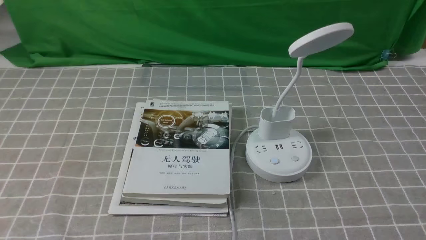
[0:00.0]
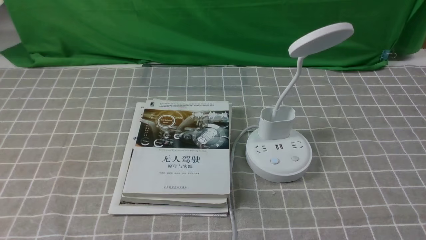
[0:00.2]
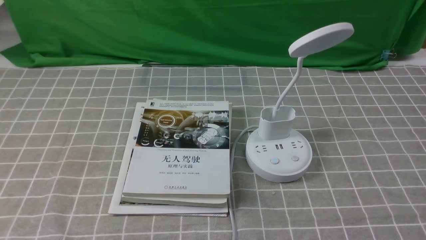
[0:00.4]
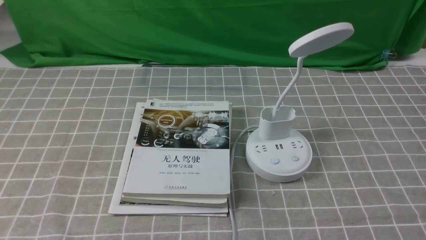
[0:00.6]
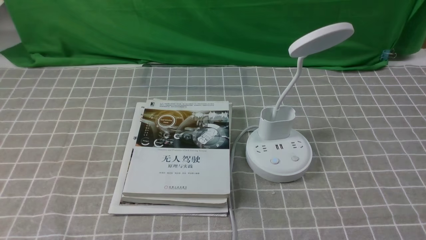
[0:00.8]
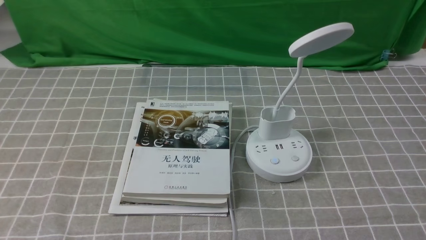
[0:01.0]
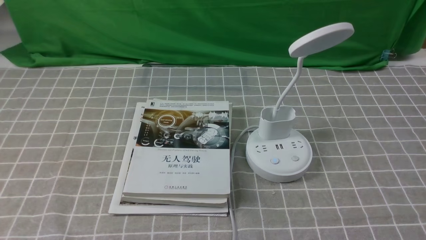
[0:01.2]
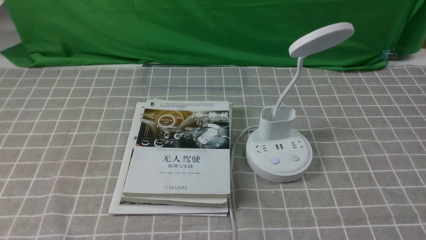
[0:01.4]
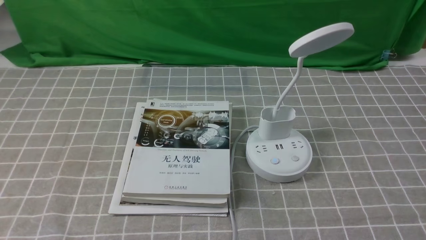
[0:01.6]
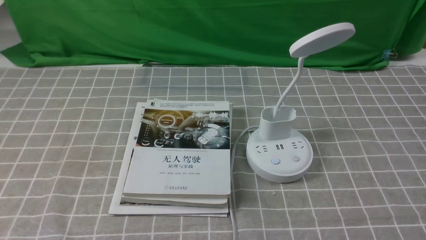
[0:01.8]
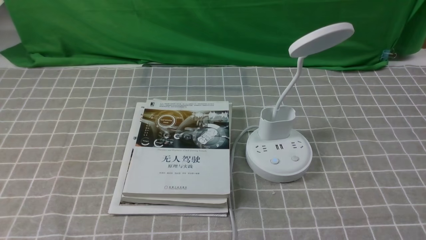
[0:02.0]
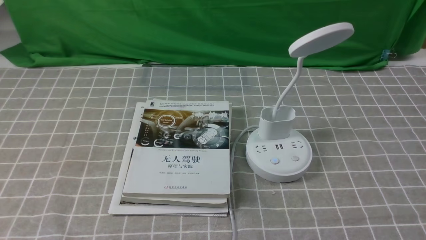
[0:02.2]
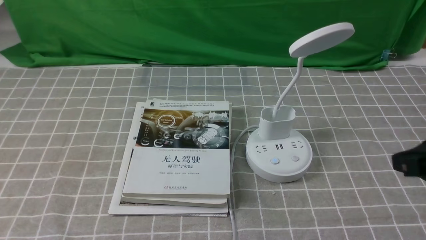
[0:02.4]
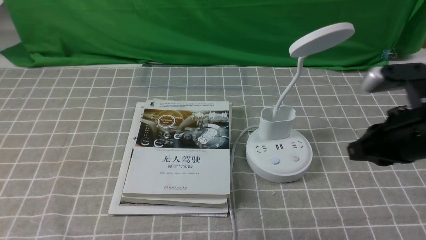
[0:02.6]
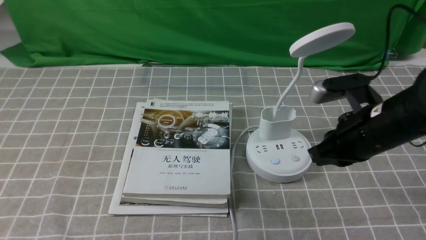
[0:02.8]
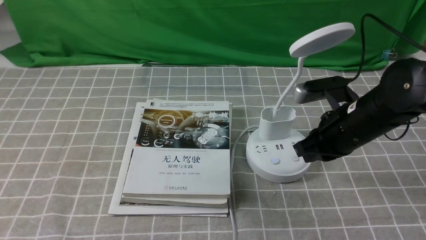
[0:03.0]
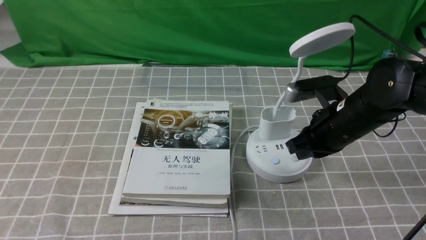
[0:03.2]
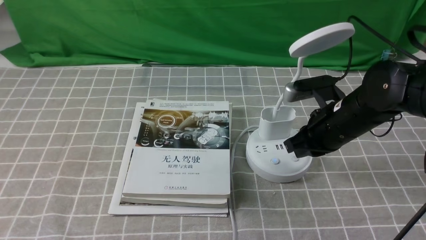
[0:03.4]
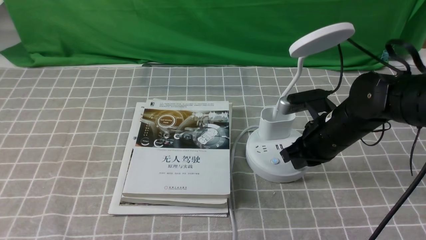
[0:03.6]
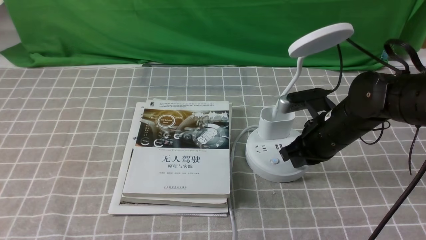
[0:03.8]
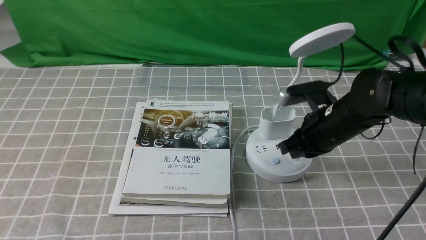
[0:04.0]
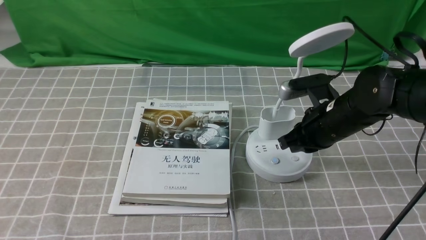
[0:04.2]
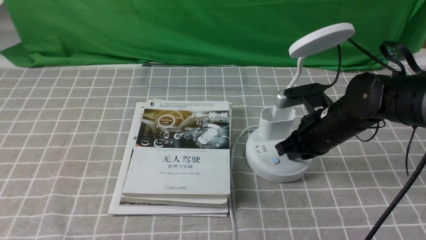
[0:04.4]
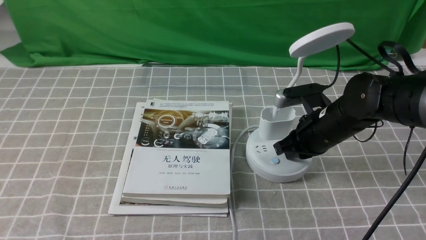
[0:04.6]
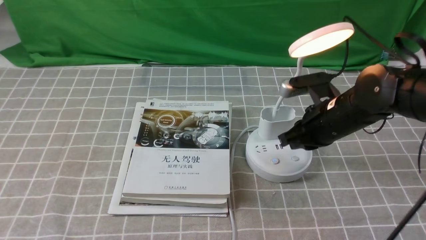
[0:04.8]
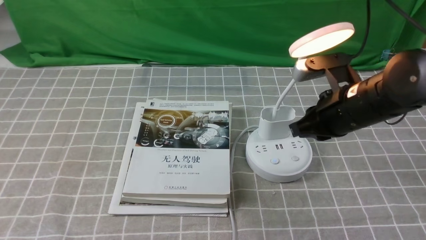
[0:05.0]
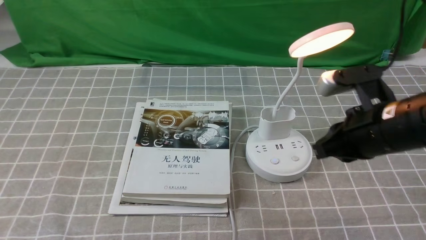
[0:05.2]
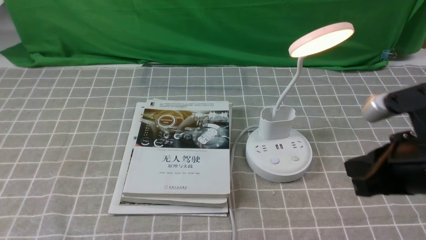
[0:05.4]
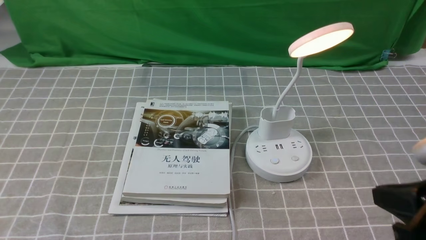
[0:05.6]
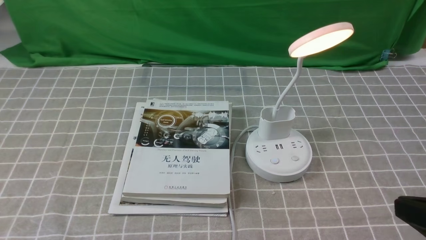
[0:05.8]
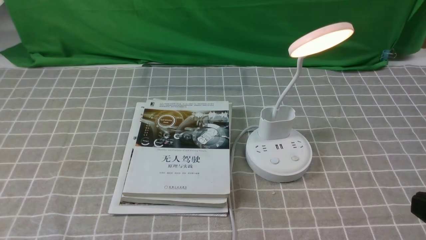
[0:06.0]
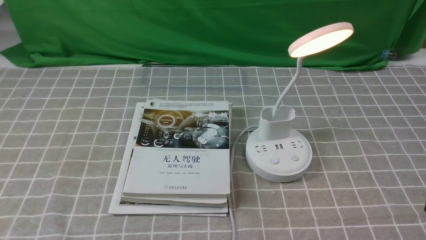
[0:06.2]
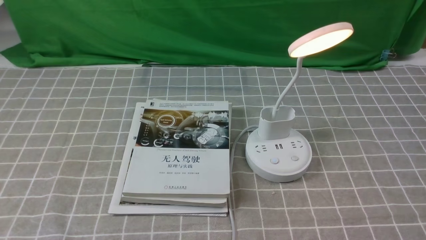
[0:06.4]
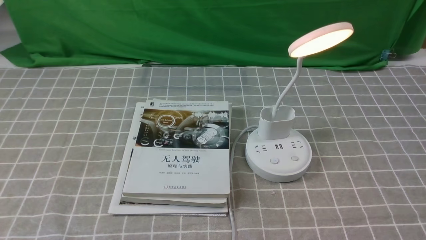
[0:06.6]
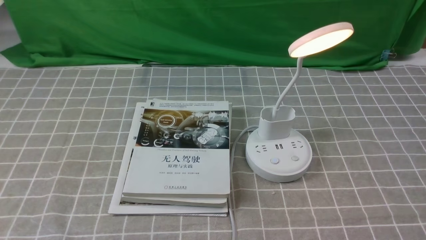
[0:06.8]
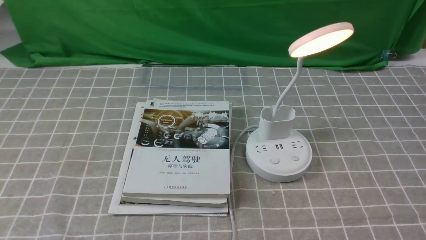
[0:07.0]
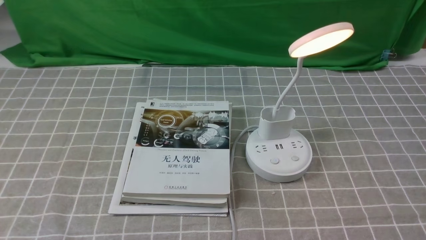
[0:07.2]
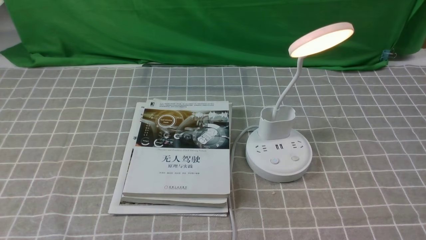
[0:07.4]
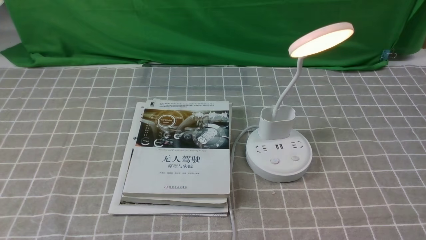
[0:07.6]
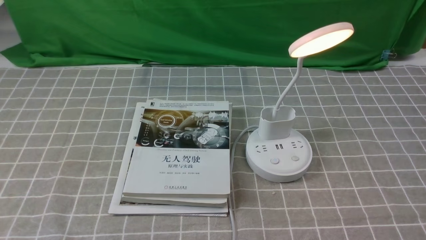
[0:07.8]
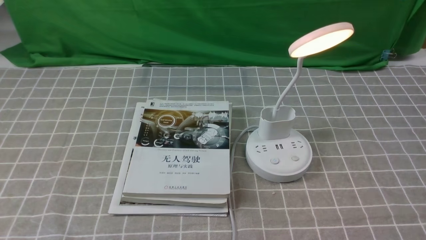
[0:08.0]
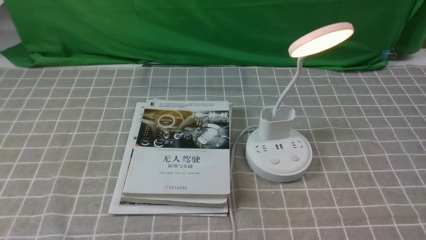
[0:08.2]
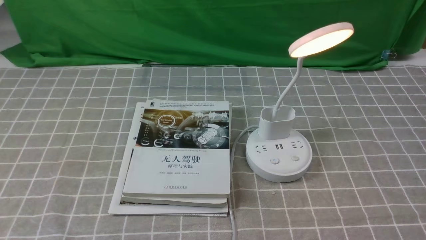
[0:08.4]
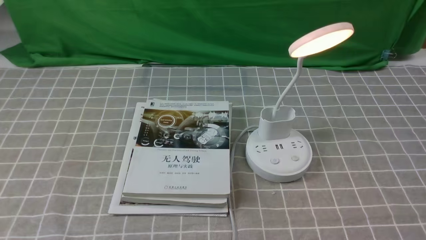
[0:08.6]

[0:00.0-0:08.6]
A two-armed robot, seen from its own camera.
Step, 0:00.0 to 0:05.0: use the right arm to press the button switch on the lamp holder.
0:01.4 to 0:02.8: The right gripper heads forward and to the left, covering some 25 cm, and closes up.
0:02.8 to 0:04.4: The right gripper goes some 10 cm downward and forward.
0:04.4 to 0:05.8: The right gripper moves backward and upward, approximately 25 cm.
0:05.8 to 0:07.2: The right gripper moves downward, about 10 cm.

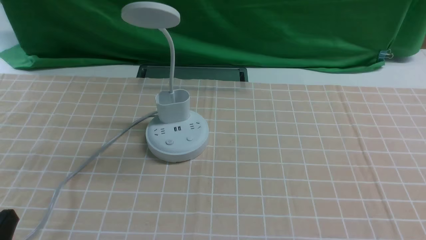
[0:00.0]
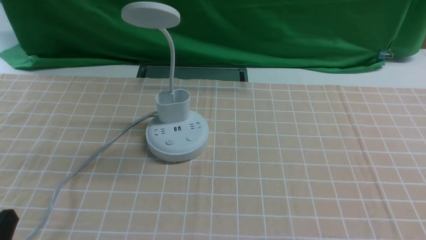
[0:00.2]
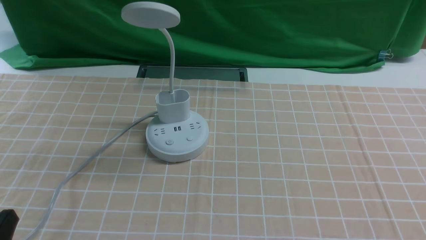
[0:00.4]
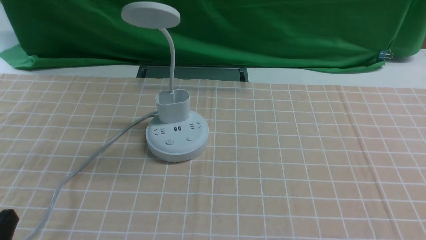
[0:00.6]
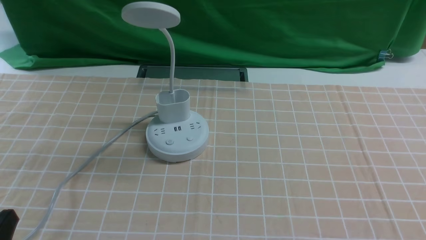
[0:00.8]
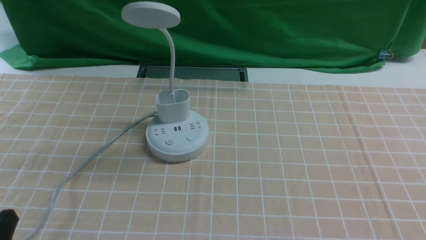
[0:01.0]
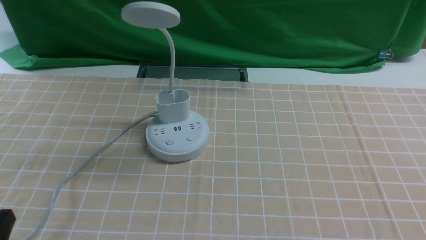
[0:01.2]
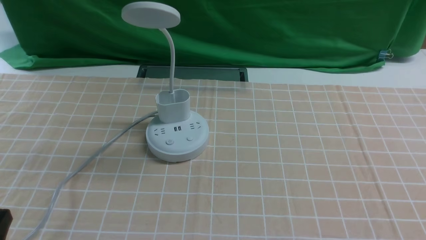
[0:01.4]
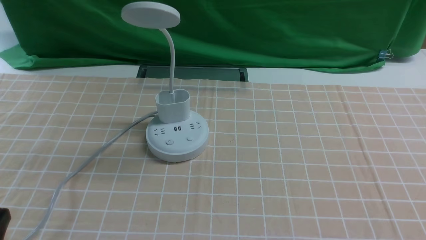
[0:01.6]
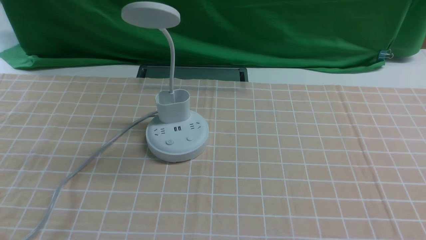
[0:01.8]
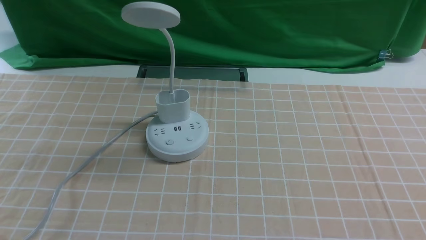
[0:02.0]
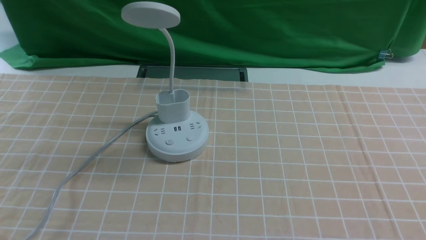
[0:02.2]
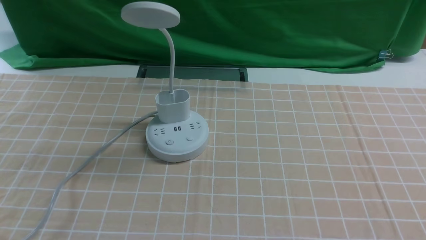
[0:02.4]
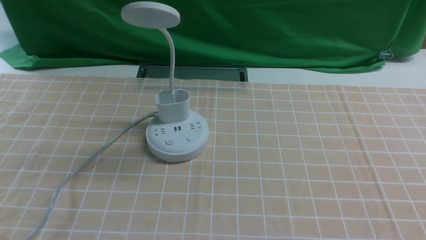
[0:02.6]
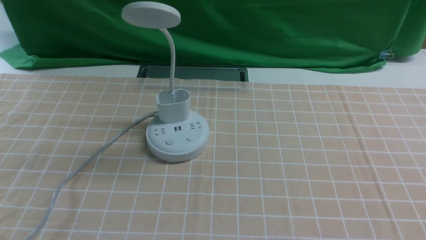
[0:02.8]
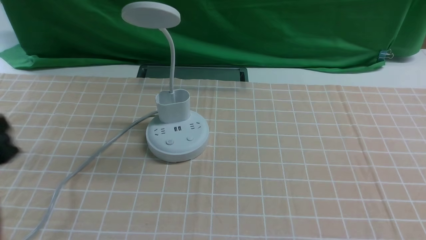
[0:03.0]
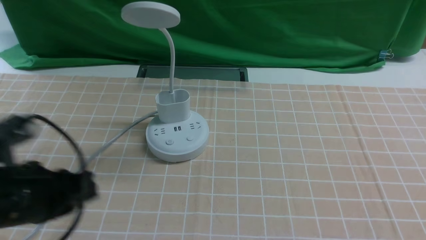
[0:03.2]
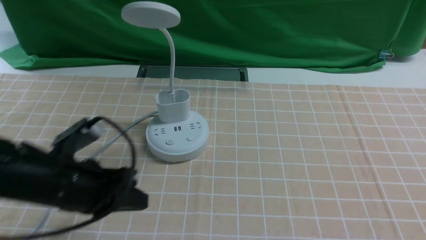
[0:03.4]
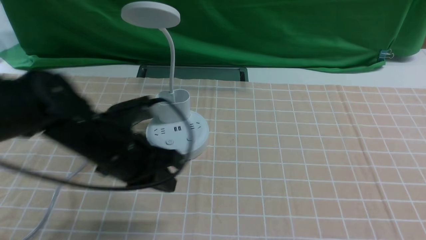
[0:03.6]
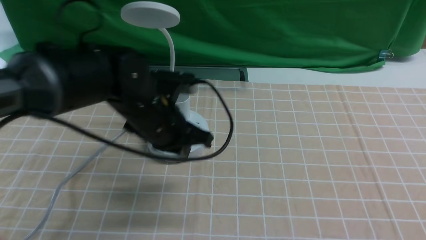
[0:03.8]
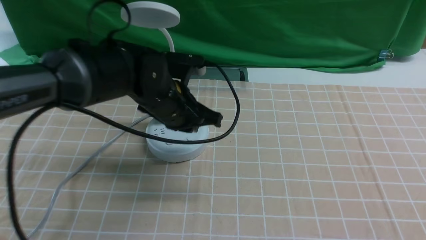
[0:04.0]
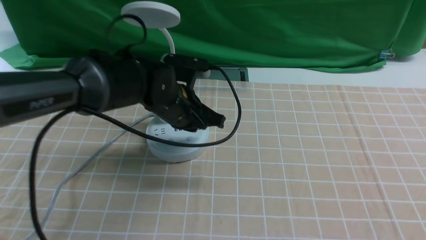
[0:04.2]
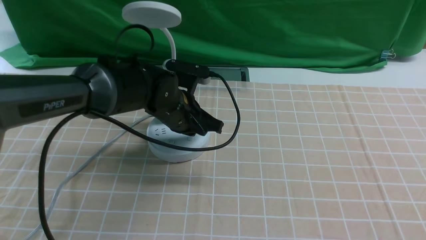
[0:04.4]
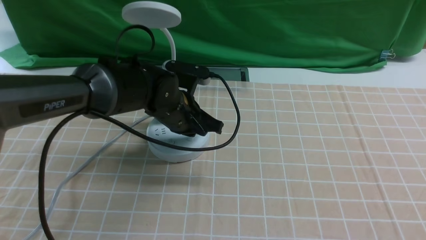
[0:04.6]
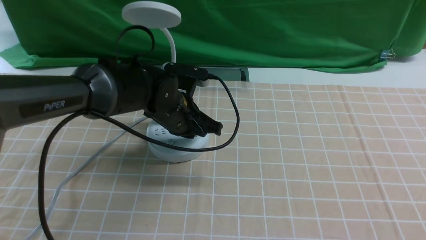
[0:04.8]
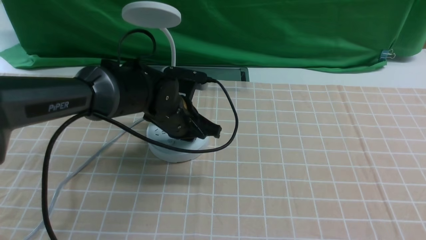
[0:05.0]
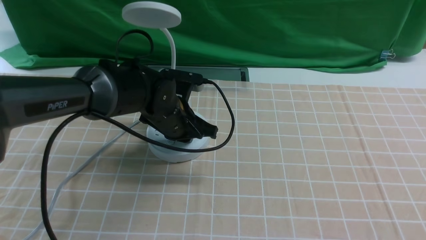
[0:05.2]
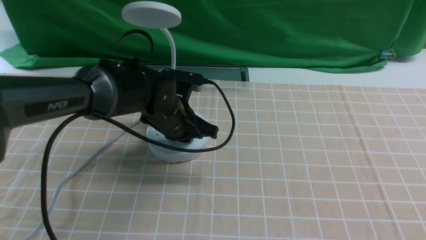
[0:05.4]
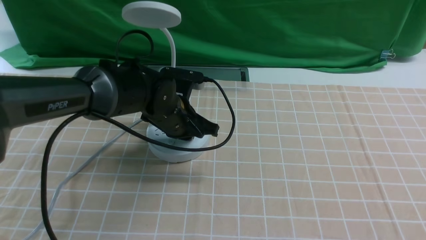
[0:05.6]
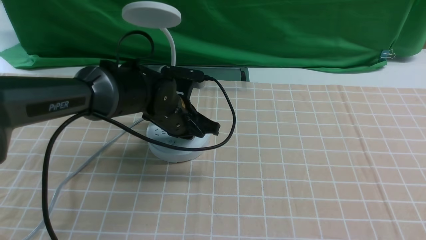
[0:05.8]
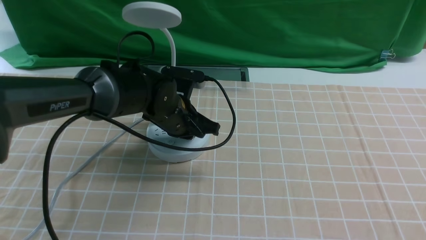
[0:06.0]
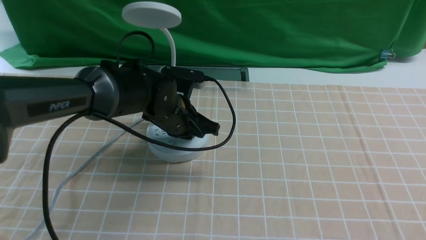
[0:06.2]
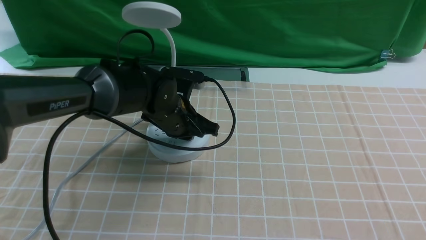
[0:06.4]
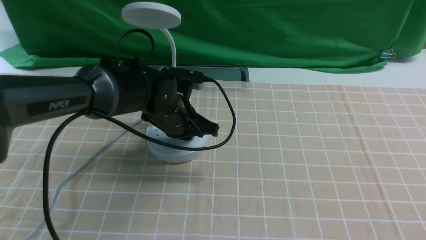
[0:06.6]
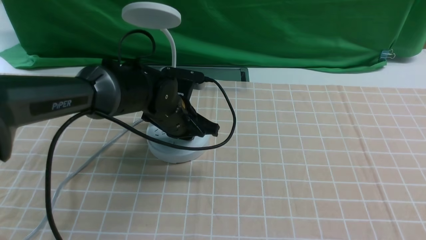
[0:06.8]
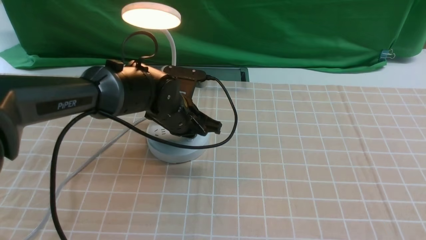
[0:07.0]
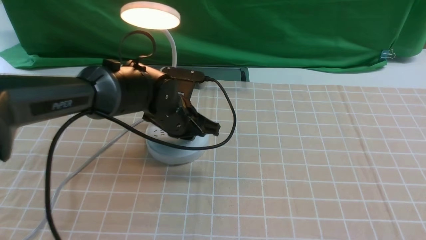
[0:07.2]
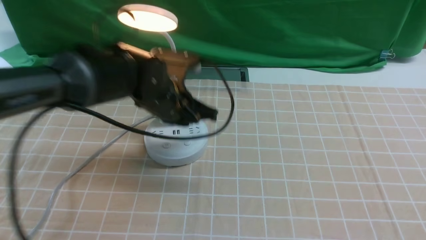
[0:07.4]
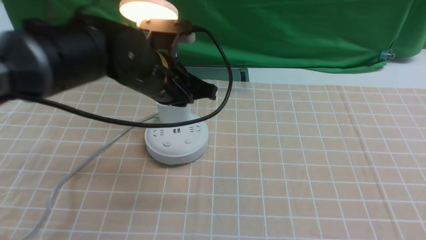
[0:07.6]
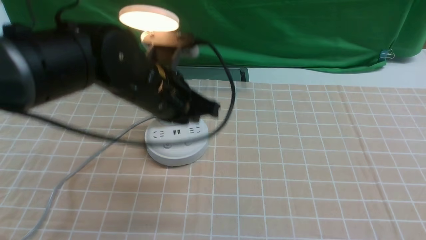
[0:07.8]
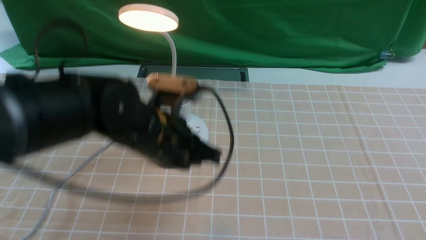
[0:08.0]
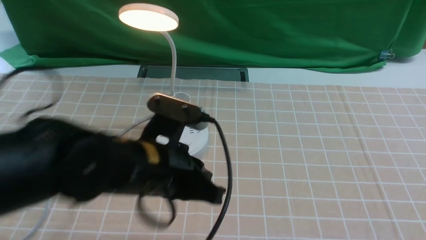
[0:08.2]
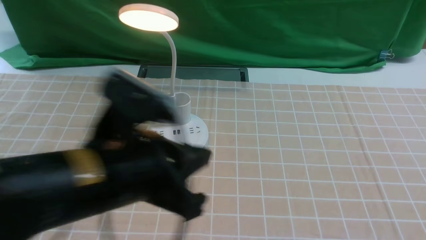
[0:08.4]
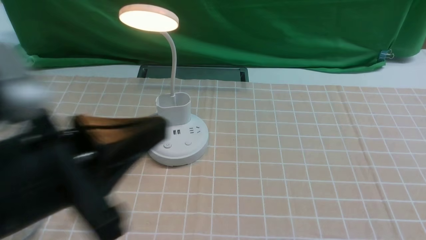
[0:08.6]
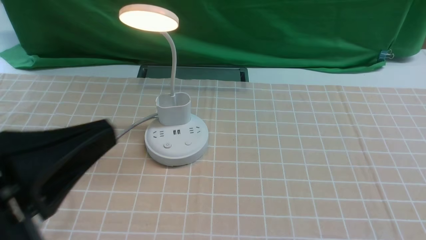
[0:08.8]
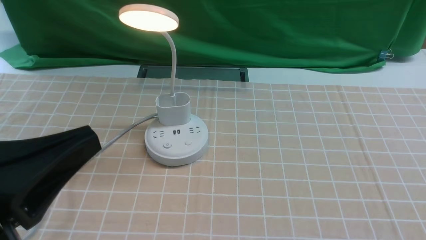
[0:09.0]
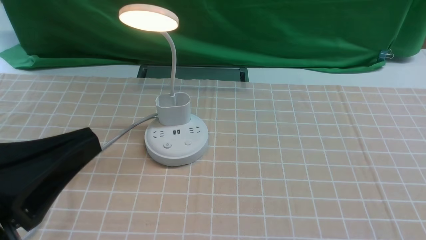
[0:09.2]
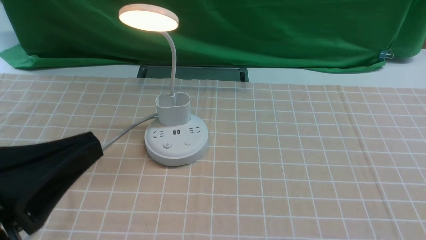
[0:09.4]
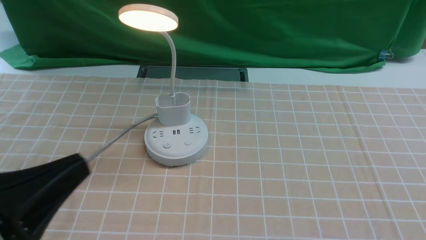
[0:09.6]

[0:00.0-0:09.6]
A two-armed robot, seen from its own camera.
Step, 0:00.0 to 0:07.6: use the left arm to press the button switch on the lamp holder.
0:01.6 to 0:03.2: The left gripper travels forward and upward by roughly 15 cm.
0:03.2 to 0:04.8: The left gripper goes some 30 cm forward, to the right and downward, and closes its fingers.
0:04.8 to 0:06.4: Both grippers stay put.
0:06.4 to 0:08.0: The left gripper heads backward and upward, covering some 10 cm.
0:08.0 to 0:09.6: The left gripper goes roughly 25 cm backward and to the left.
